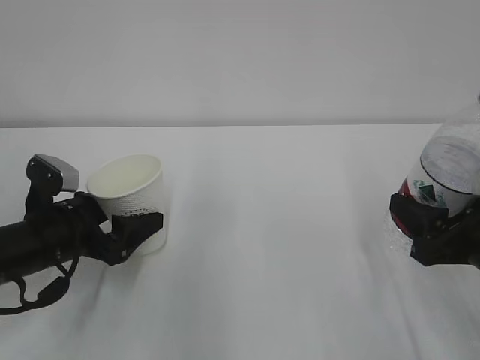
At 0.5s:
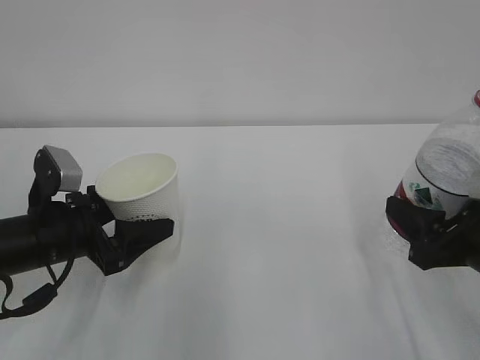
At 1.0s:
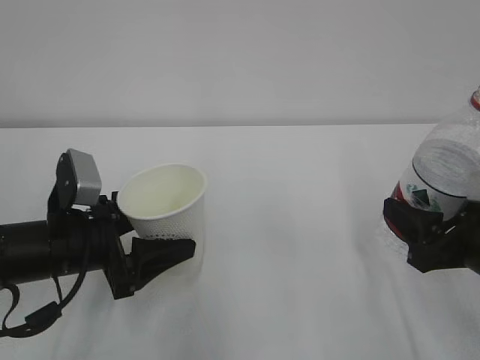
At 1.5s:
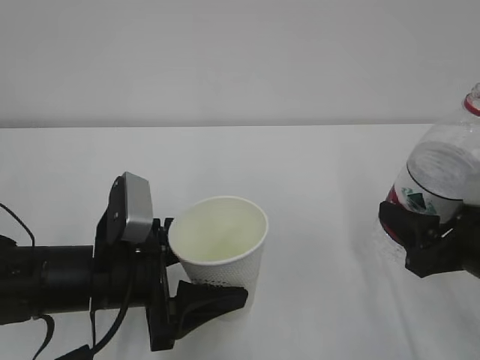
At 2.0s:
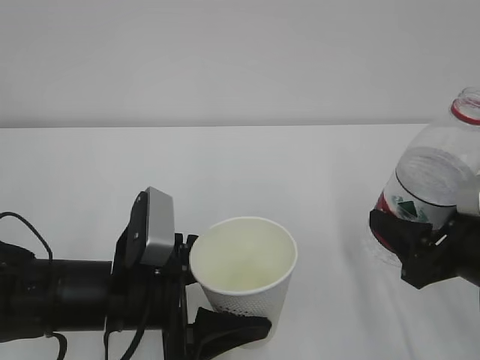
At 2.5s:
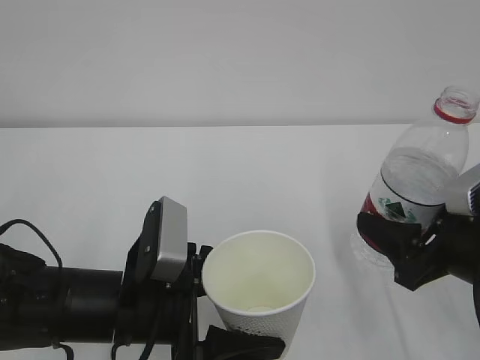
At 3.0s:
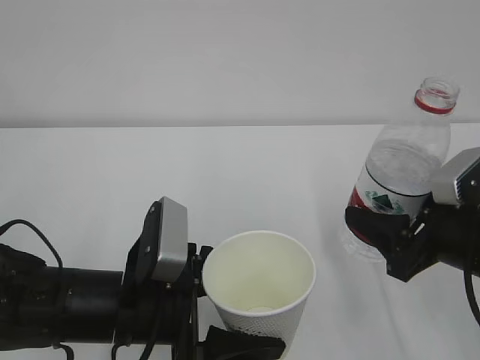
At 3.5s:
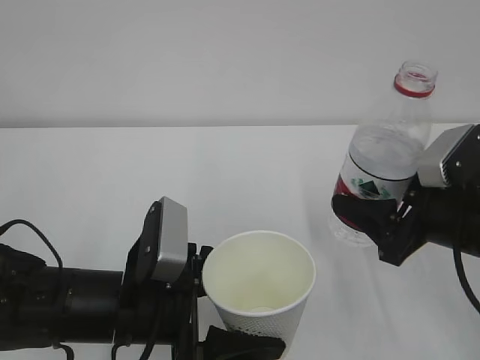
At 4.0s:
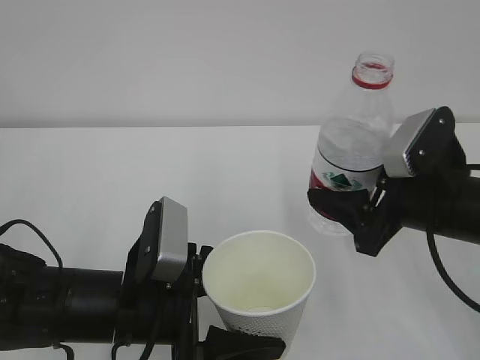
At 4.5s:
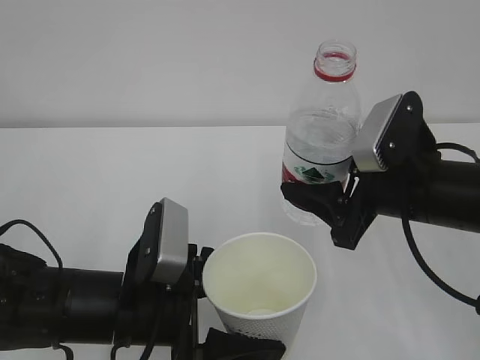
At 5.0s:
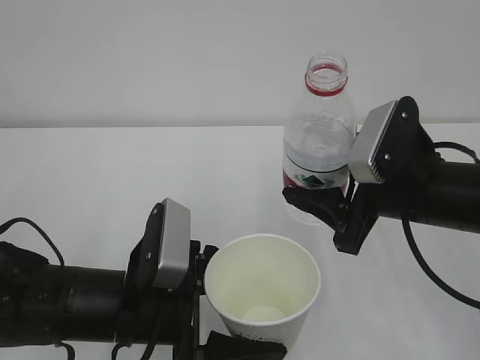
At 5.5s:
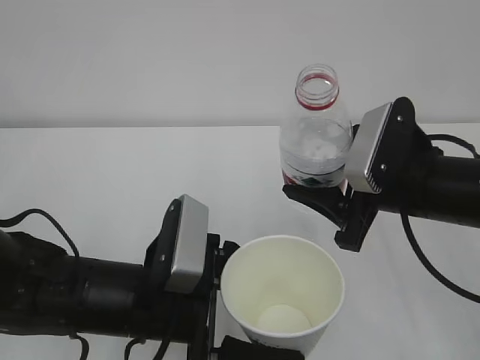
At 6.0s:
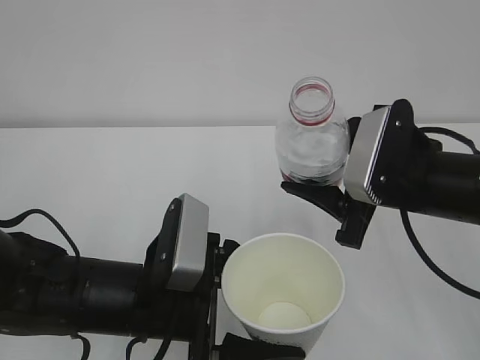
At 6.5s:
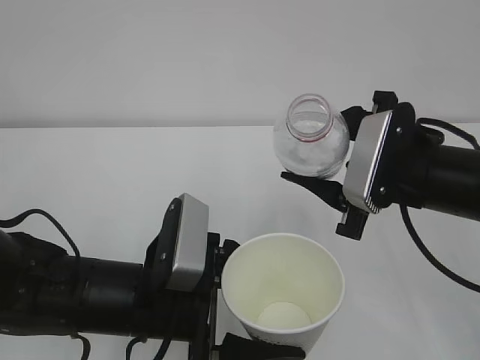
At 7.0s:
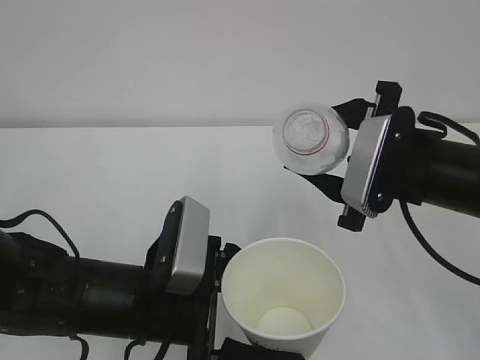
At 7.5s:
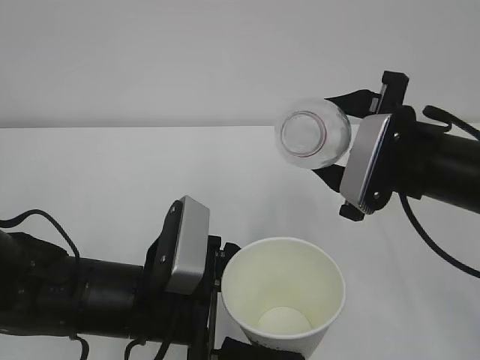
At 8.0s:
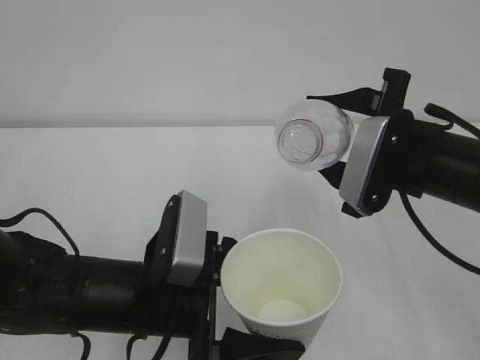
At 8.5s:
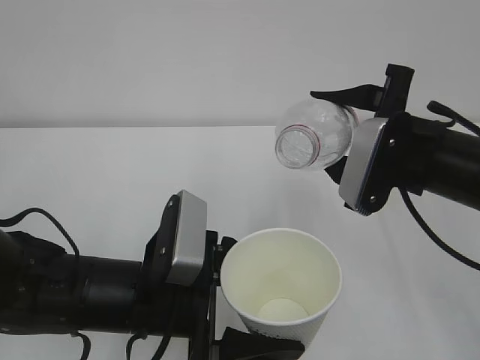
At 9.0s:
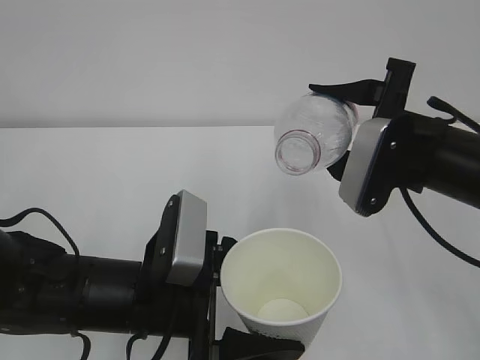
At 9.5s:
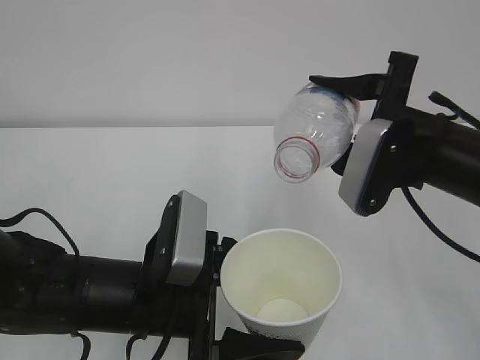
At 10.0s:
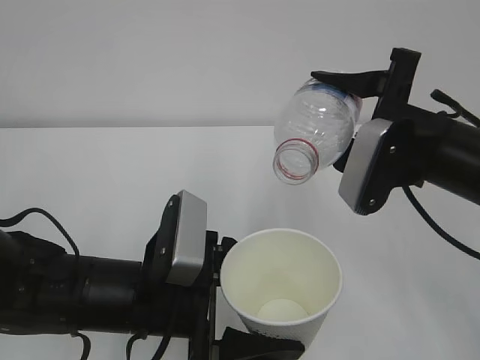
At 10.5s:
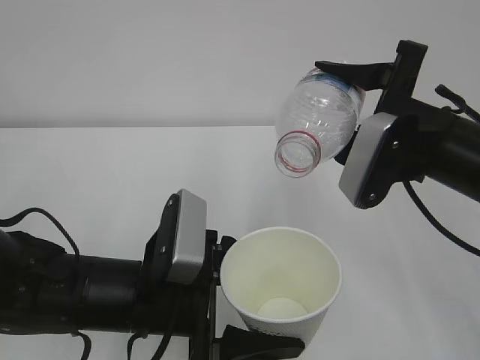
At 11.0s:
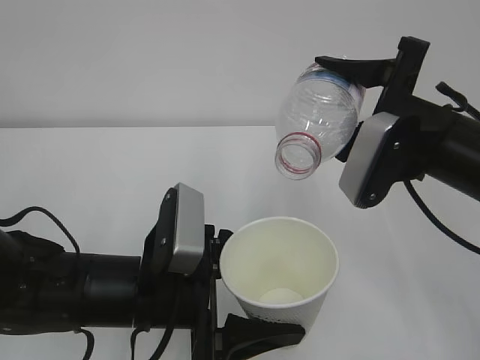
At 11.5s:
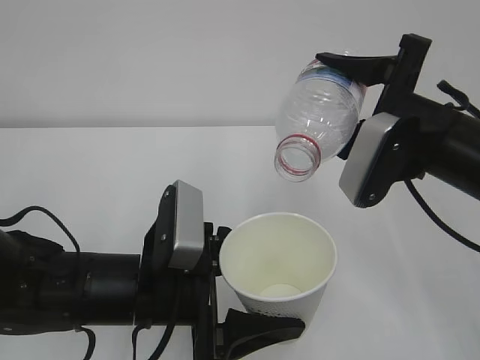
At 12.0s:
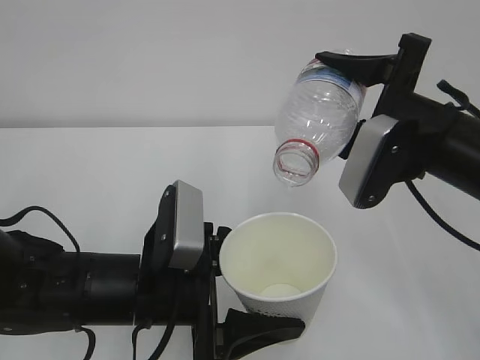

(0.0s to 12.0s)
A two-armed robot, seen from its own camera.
0.0s - 2.0s: The left gripper is displaced to the right and backward by approximately 15 cm.
2.0s - 4.0s: The right gripper travels forward by roughly 5 cm.
8.0s - 10.0s: There are only small adjustments of the grippers.
10.0s - 12.0s: The grippers make only small movements.

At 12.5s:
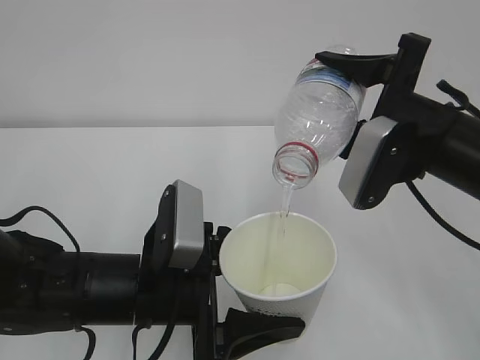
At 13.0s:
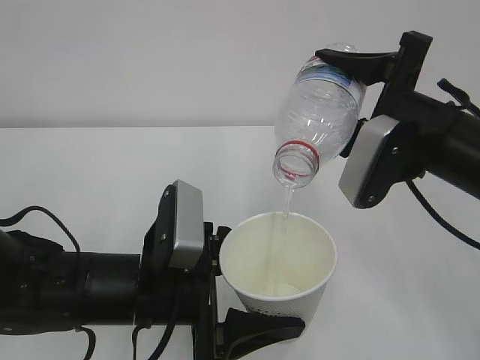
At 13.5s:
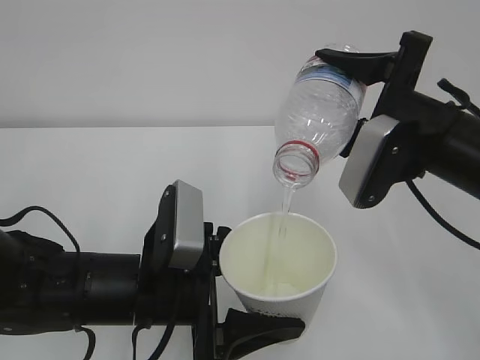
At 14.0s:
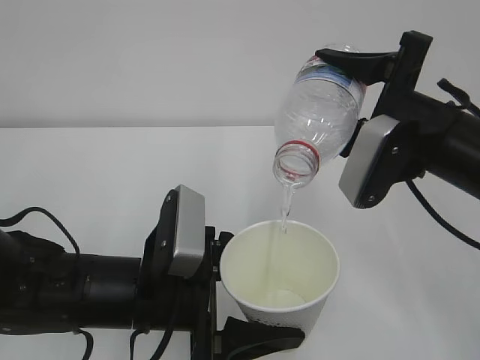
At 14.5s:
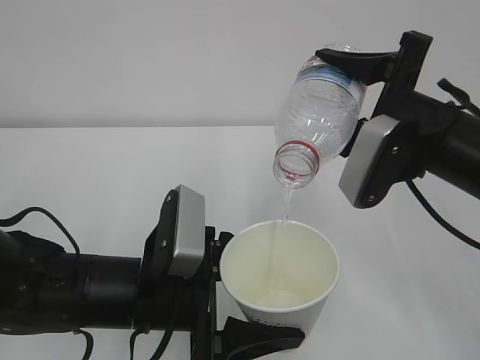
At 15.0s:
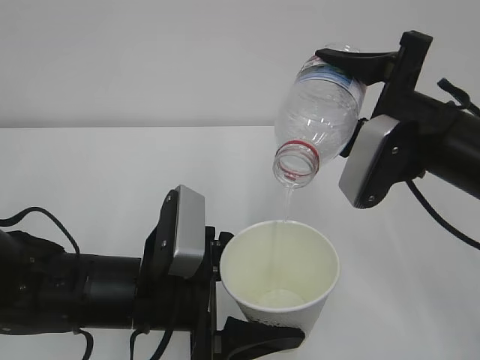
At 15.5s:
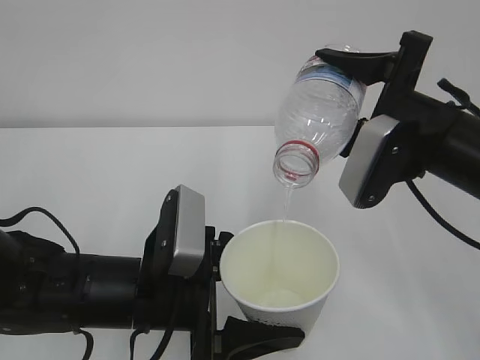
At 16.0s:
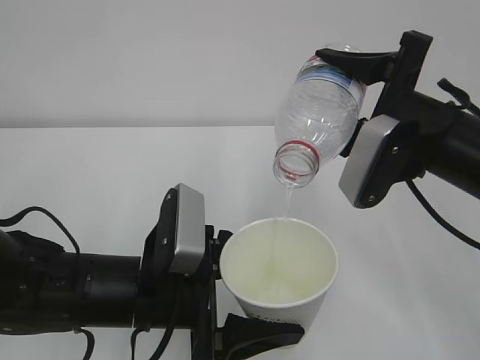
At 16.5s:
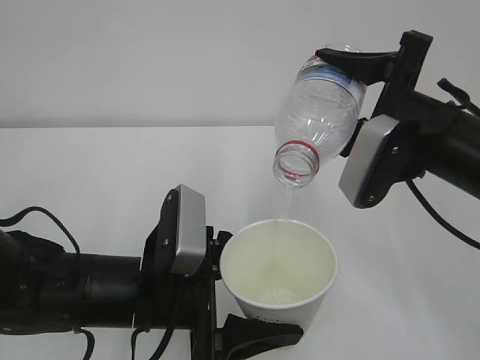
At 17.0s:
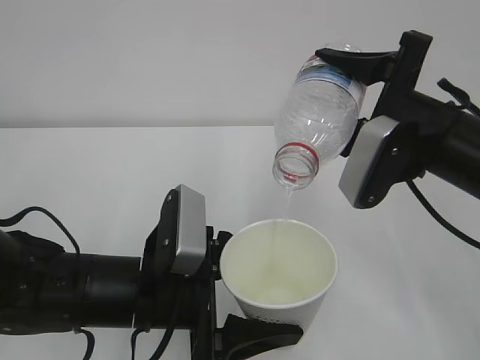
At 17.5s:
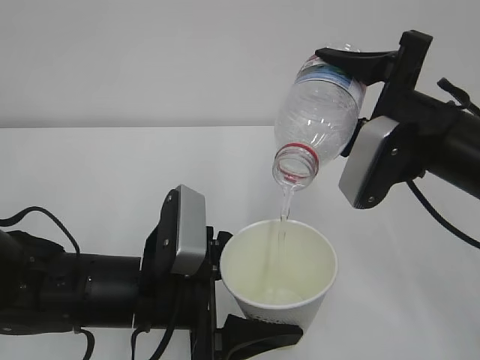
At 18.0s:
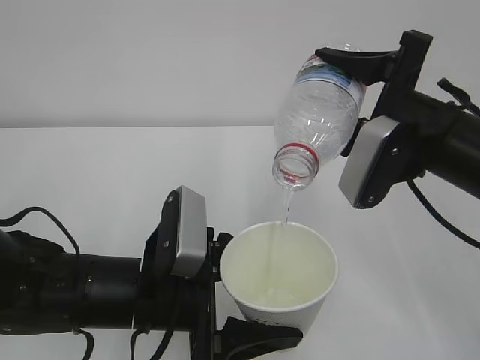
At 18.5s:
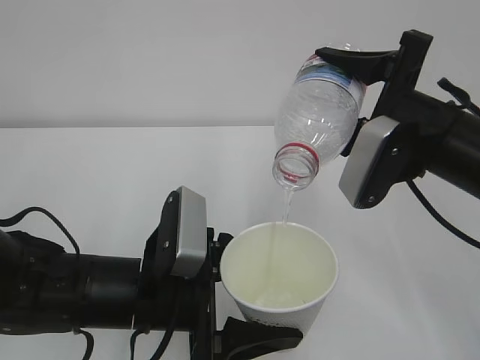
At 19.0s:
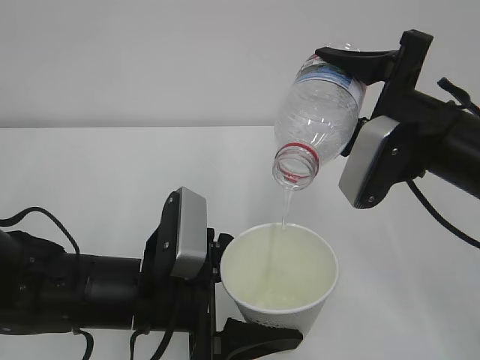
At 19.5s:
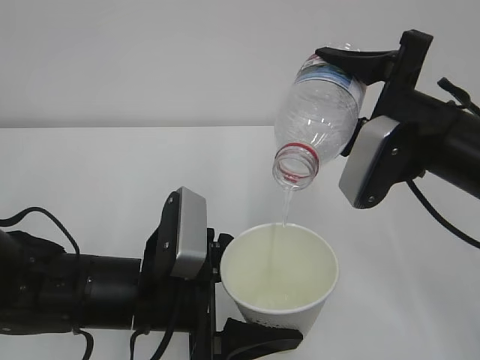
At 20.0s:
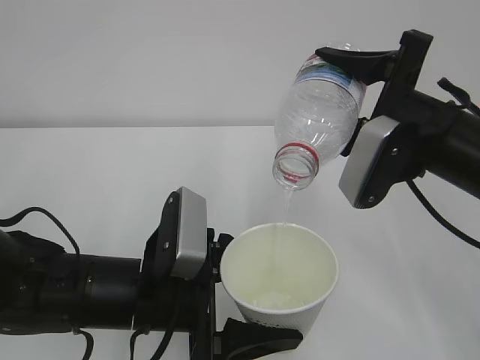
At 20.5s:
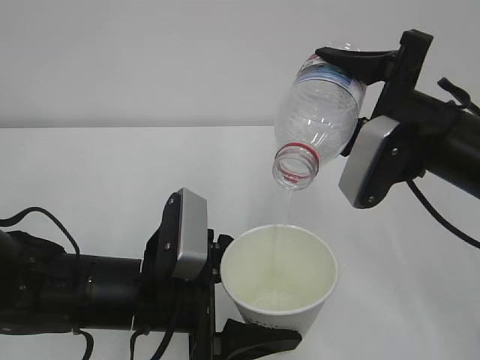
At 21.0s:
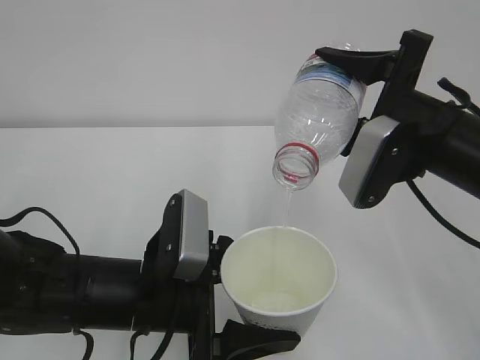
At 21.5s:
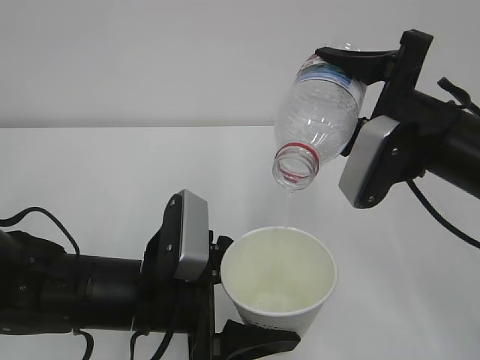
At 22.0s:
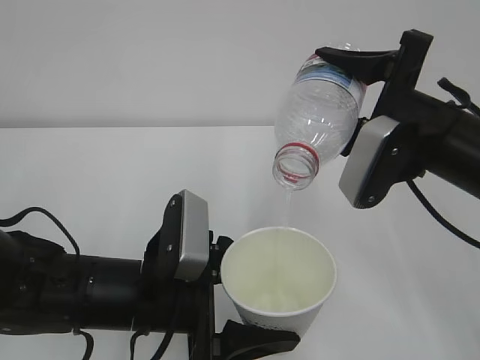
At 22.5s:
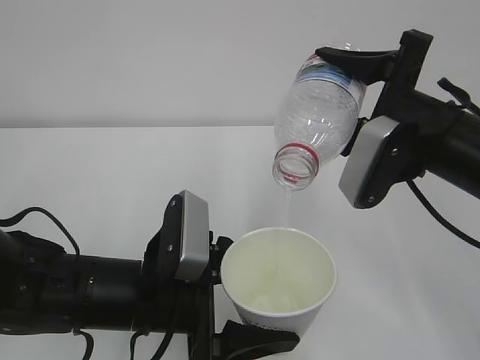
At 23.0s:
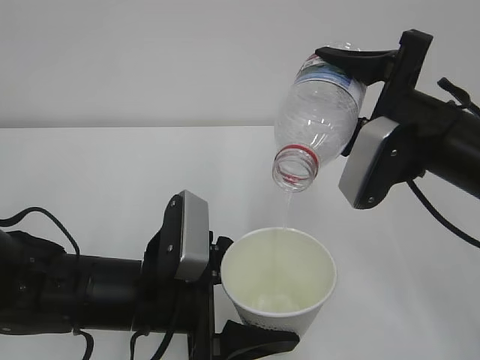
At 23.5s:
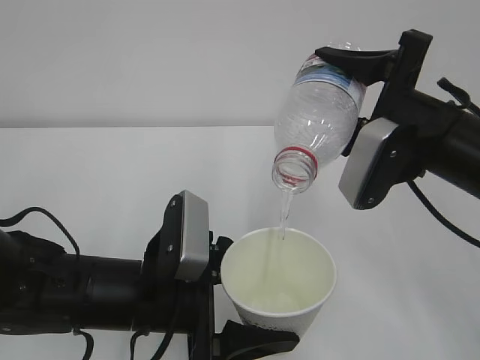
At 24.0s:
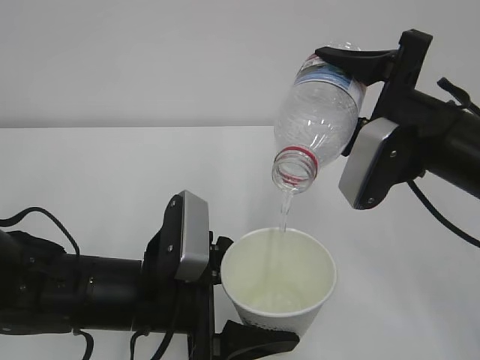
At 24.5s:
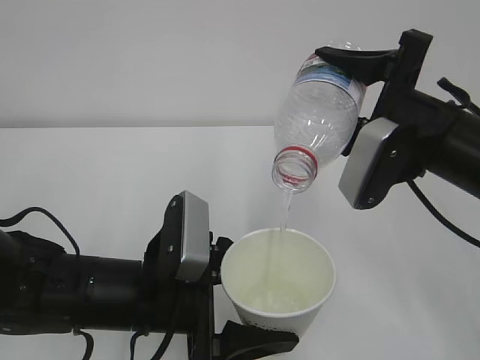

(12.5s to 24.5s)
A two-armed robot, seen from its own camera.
12.5s - 24.5s: The two grippers keep their place.

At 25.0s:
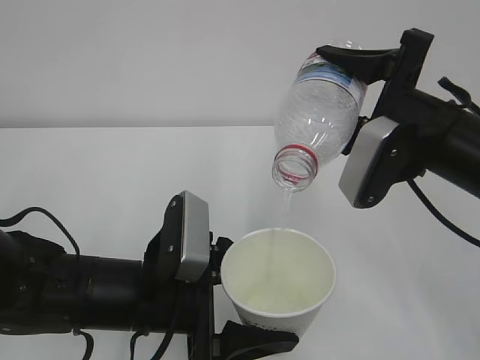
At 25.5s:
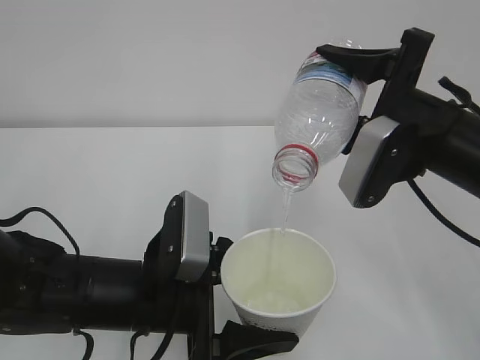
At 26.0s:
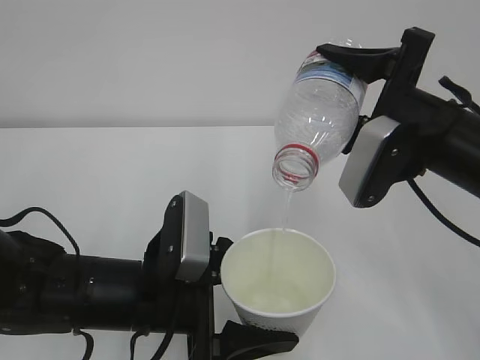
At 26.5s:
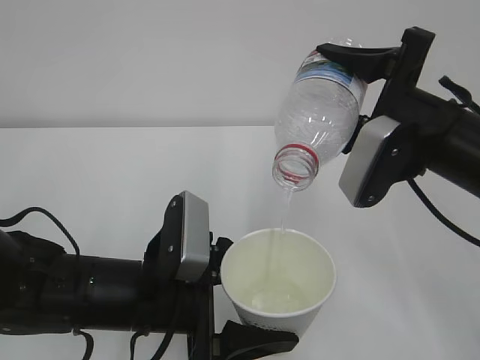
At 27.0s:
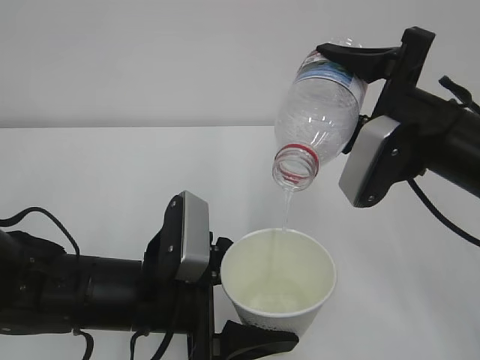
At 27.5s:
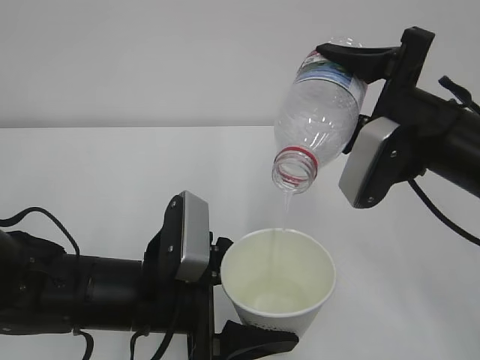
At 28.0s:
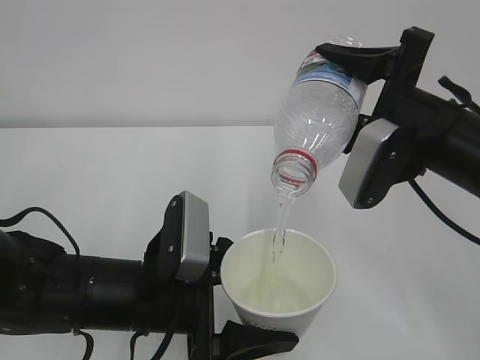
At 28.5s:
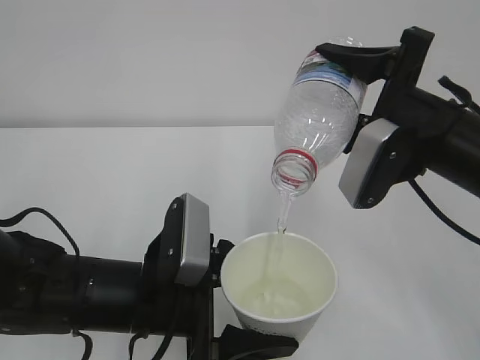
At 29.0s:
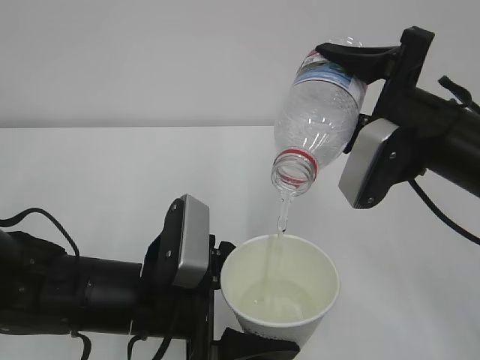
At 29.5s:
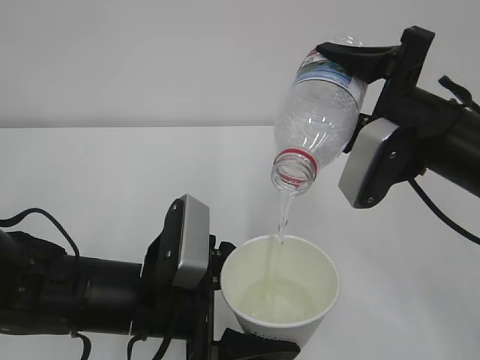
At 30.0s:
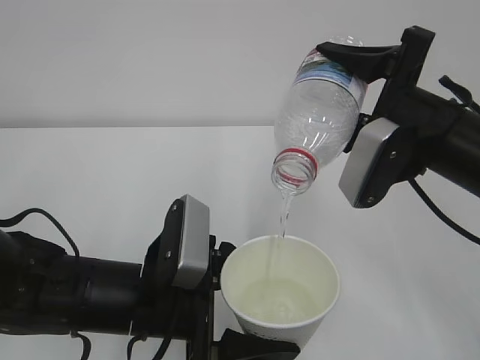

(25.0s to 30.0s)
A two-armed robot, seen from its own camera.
25.0s - 30.0s: Both grippers stay put.
